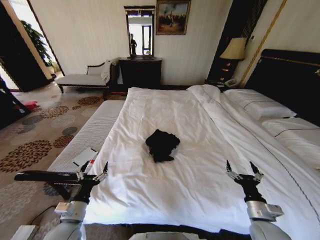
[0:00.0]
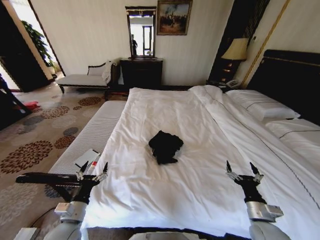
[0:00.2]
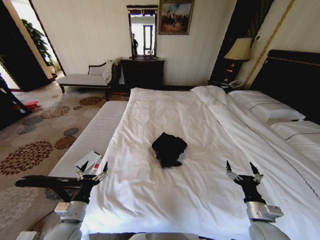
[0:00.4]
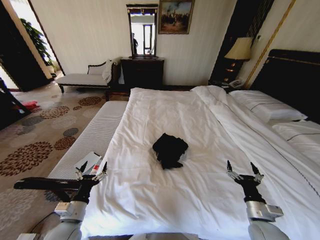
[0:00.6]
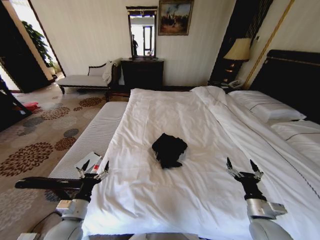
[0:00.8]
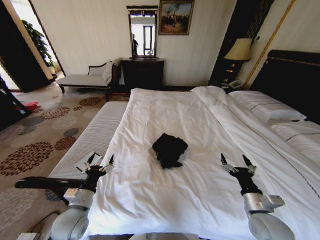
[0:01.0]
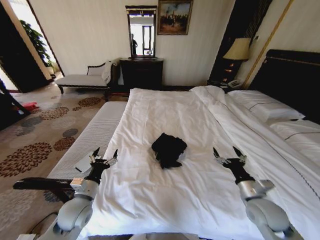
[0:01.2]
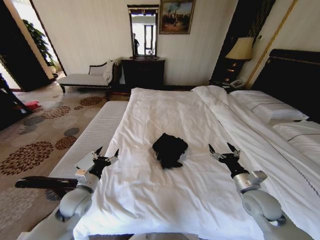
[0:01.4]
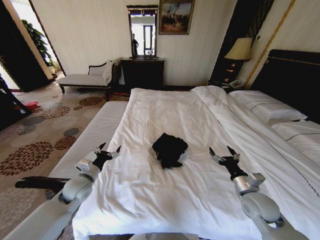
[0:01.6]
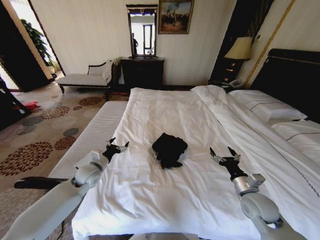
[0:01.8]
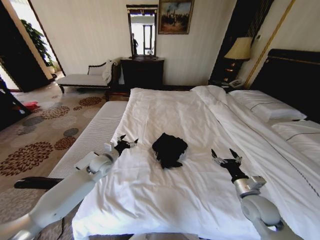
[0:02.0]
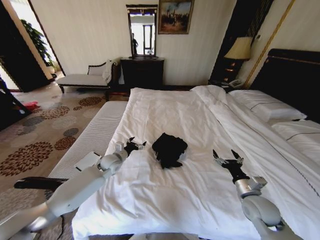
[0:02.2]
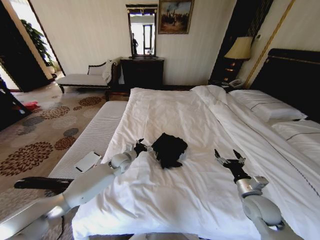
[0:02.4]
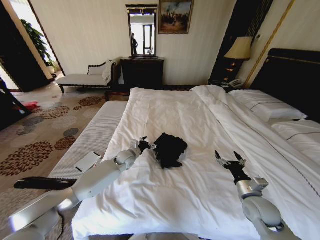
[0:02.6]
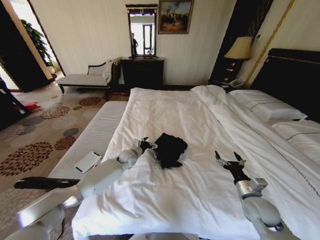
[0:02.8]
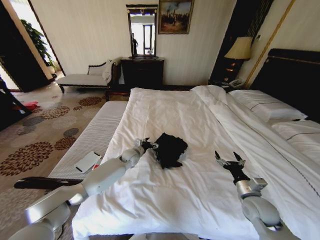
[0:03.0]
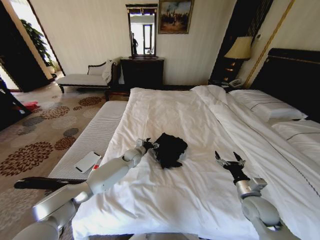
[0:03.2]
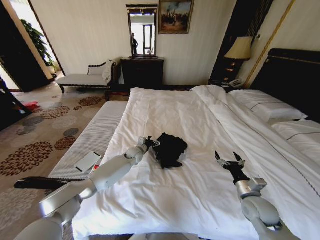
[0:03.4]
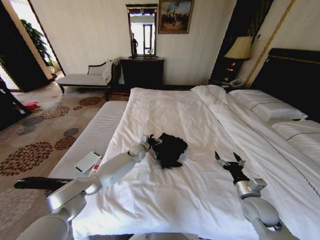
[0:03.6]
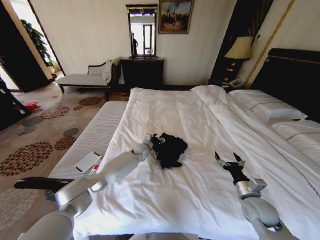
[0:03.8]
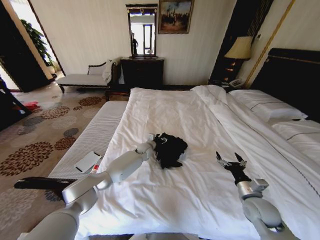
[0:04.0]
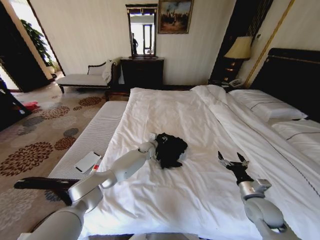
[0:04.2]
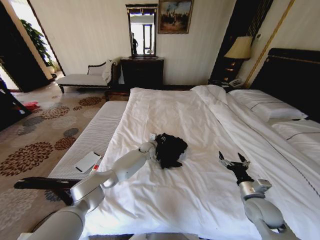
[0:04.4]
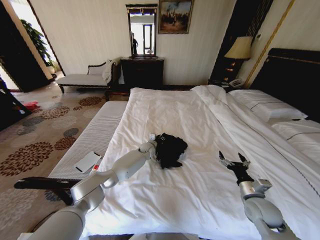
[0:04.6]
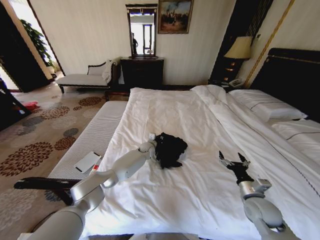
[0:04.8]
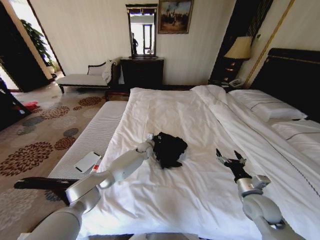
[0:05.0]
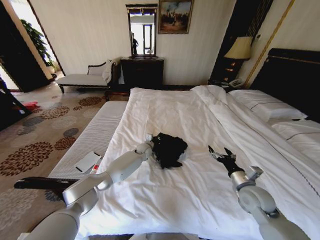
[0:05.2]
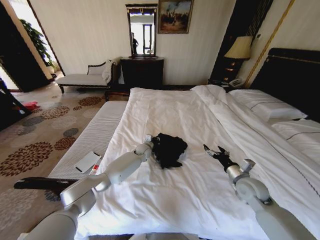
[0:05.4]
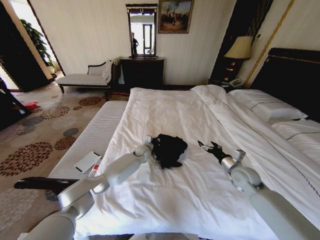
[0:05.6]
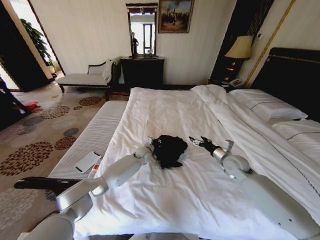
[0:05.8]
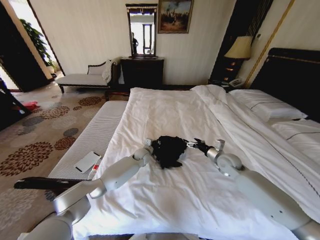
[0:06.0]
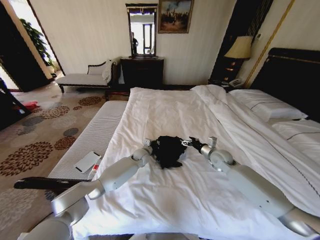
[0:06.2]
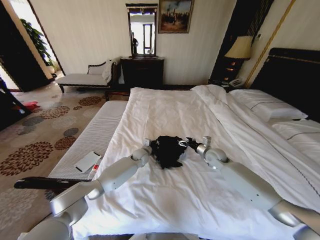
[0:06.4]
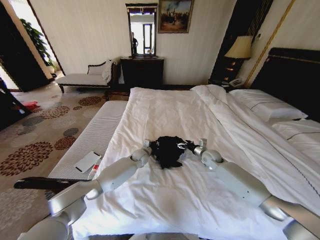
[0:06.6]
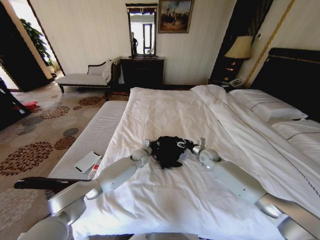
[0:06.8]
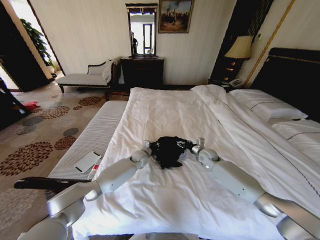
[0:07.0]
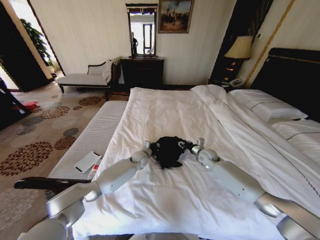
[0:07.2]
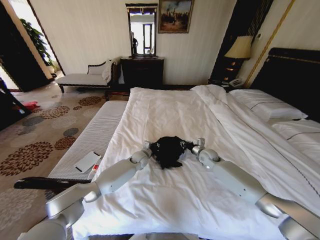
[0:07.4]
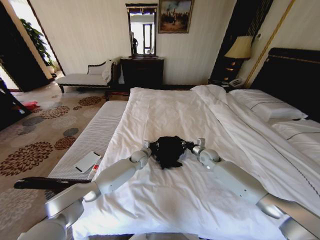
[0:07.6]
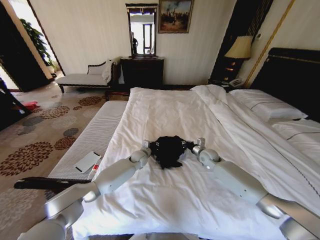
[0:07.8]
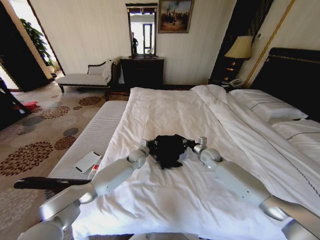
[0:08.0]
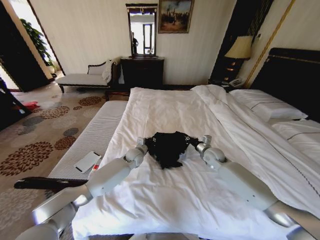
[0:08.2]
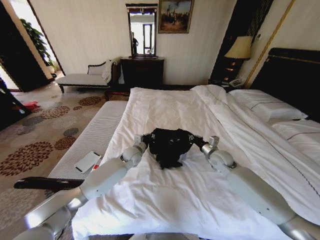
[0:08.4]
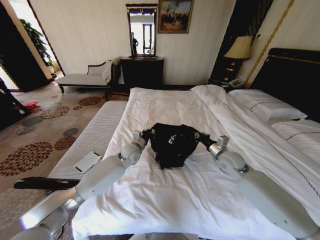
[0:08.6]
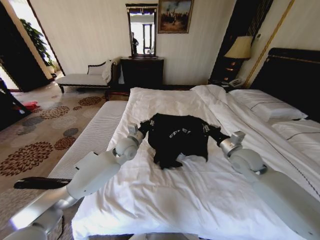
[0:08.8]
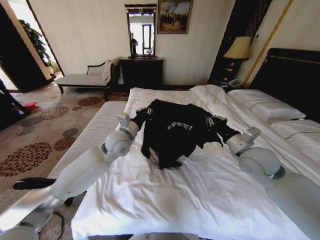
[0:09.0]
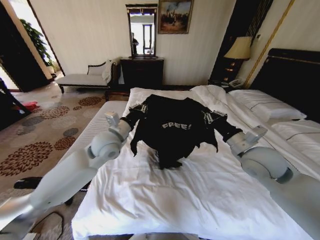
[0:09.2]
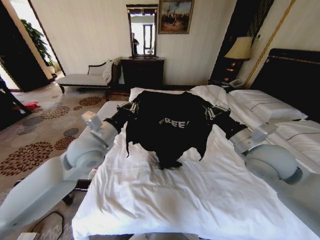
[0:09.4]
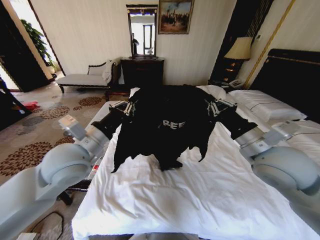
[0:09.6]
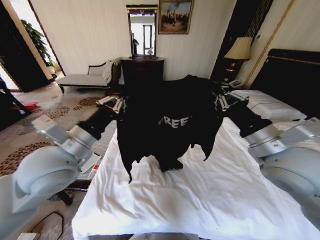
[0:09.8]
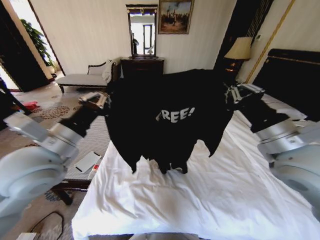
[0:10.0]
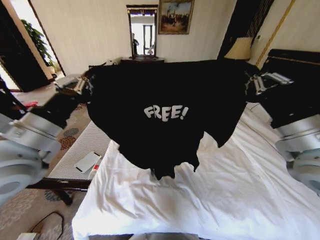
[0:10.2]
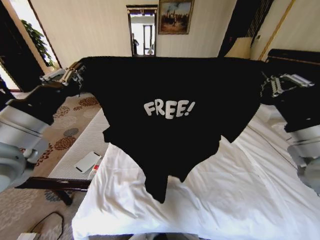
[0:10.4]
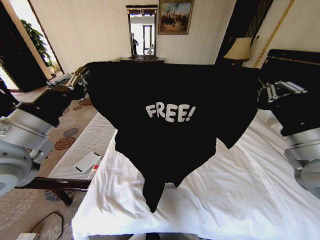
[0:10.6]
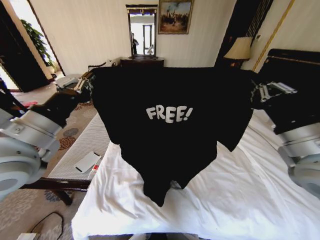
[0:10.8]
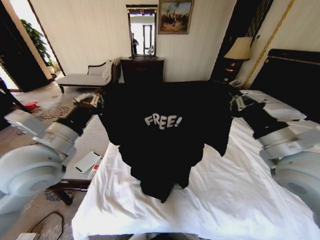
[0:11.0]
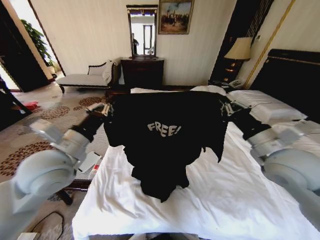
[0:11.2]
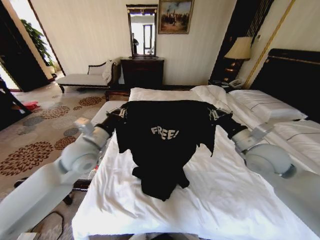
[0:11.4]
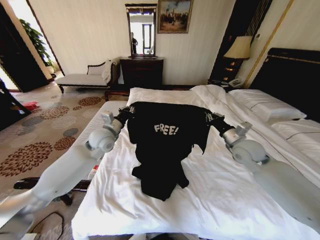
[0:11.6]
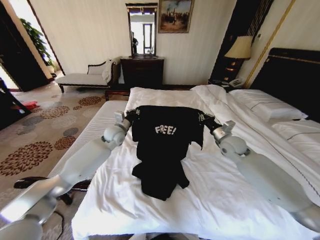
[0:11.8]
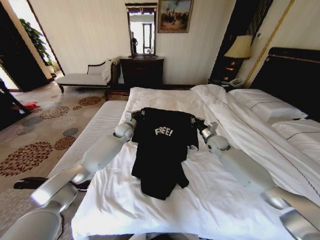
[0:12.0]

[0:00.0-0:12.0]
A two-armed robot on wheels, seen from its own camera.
Task of the whole recording: Fold the clothes on the bed.
0.0 to 1.6 s: The left gripper is displaced forward by approximately 15 cm; the right gripper heads forward and upward, covering roughly 10 cm.
1.6 to 3.0 s: The left gripper travels forward and to the right by some 25 cm.
3.0 to 4.4 s: The left gripper moves to the right and forward, roughly 10 cm, and closes its fingers.
4.4 to 6.0 s: The right gripper shifts approximately 20 cm forward. Meanwhile the left gripper moves about 5 cm, and closes its fingers.
6.0 to 7.6 s: The right gripper moves forward and downward, approximately 10 cm, and closes up.
7.6 to 9.0 s: The left gripper goes approximately 20 cm upward, while the right gripper moves upward and backward, roughly 25 cm.
9.0 to 10.4 s: The left gripper shifts roughly 30 cm backward, upward and to the left; the right gripper heads upward and backward, covering some 20 cm.
10.4 to 12.0 s: Both grippers travel together forward and downward, approximately 40 cm.

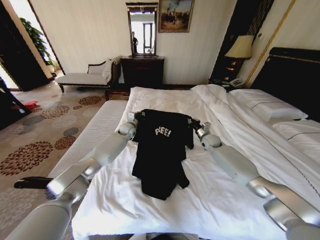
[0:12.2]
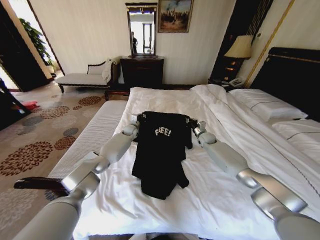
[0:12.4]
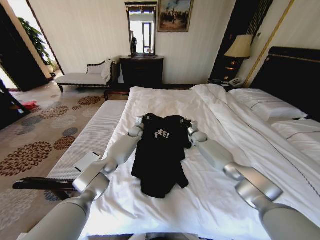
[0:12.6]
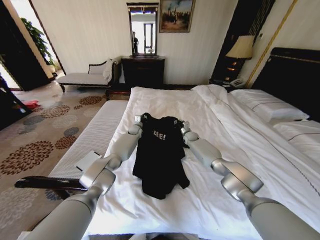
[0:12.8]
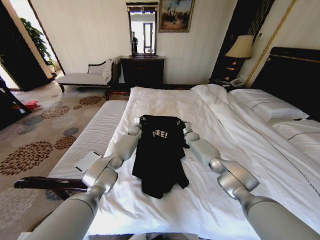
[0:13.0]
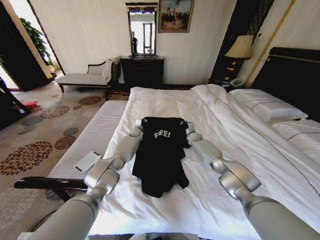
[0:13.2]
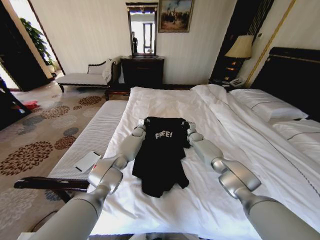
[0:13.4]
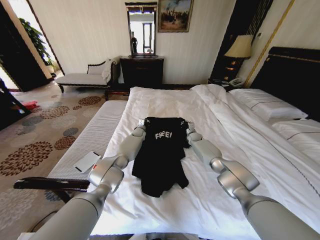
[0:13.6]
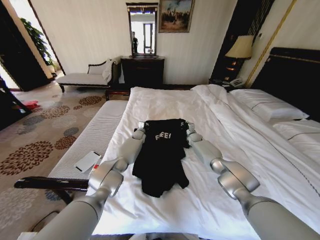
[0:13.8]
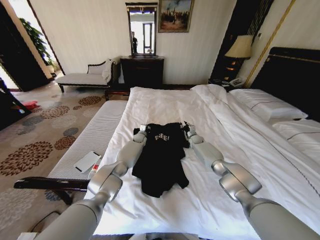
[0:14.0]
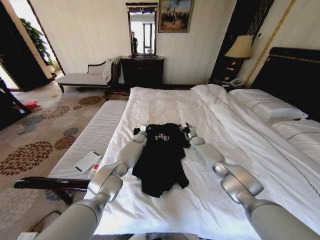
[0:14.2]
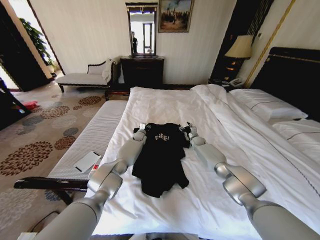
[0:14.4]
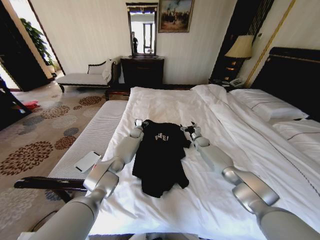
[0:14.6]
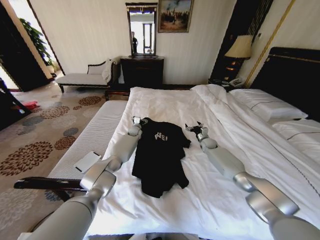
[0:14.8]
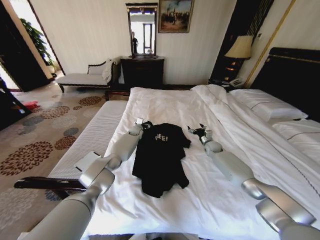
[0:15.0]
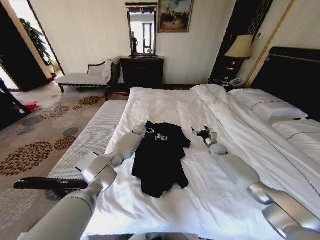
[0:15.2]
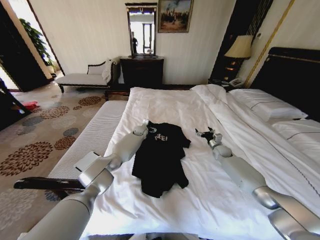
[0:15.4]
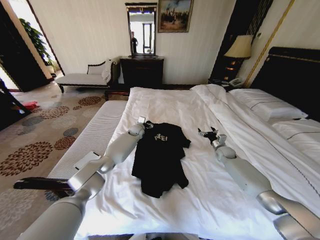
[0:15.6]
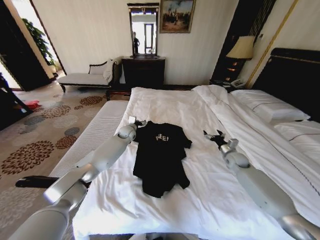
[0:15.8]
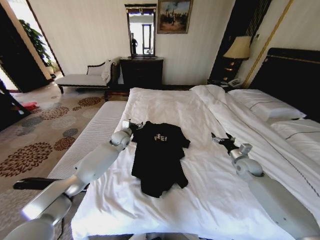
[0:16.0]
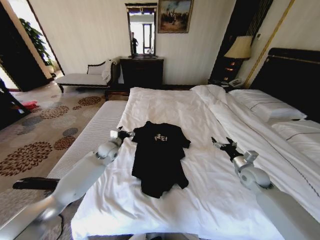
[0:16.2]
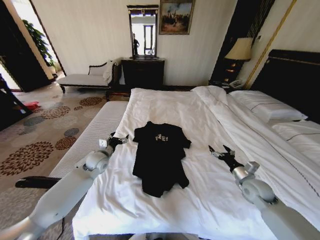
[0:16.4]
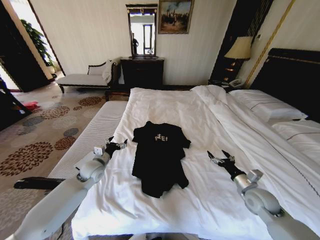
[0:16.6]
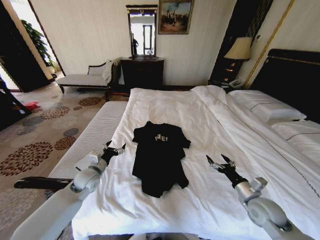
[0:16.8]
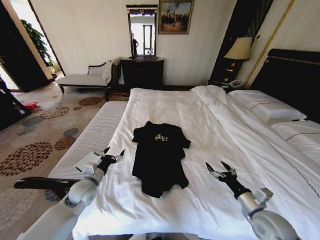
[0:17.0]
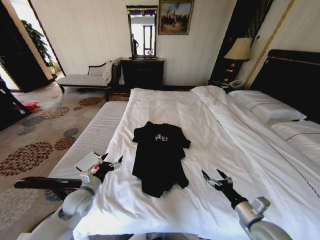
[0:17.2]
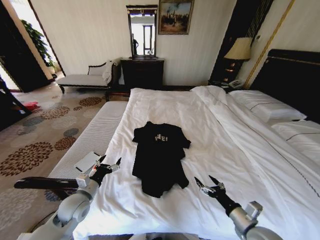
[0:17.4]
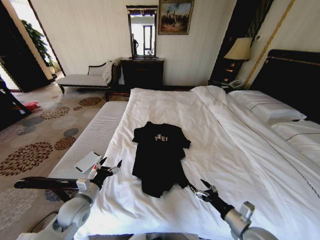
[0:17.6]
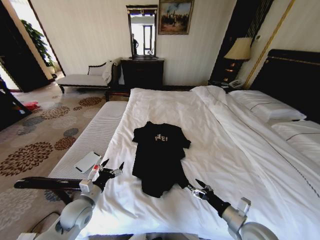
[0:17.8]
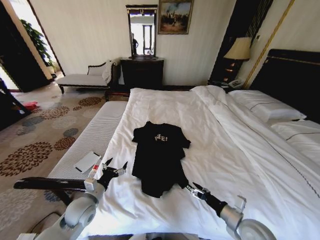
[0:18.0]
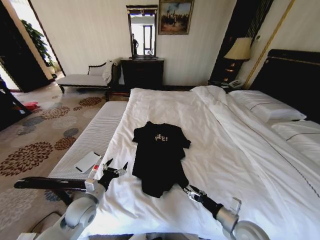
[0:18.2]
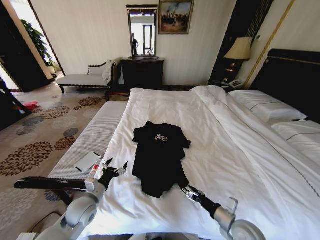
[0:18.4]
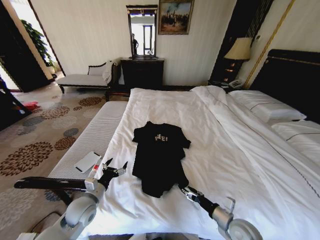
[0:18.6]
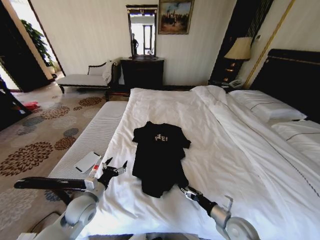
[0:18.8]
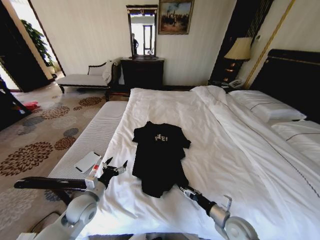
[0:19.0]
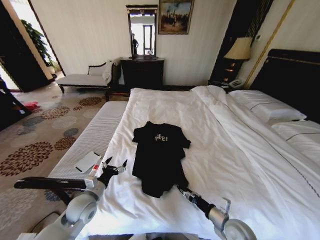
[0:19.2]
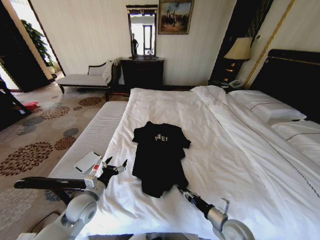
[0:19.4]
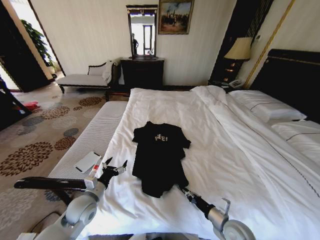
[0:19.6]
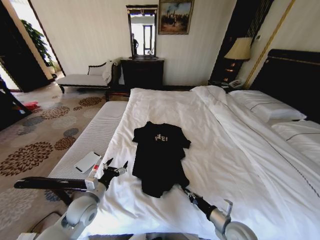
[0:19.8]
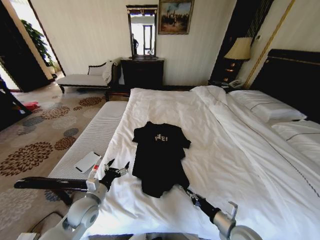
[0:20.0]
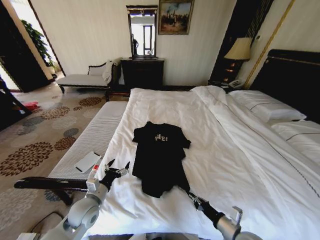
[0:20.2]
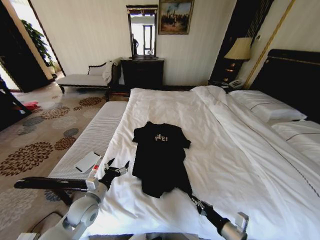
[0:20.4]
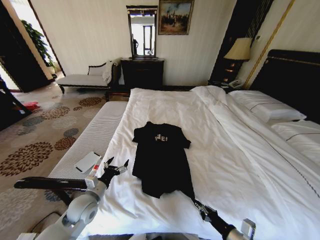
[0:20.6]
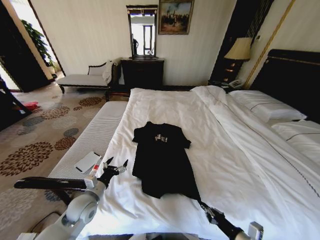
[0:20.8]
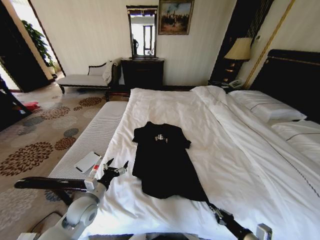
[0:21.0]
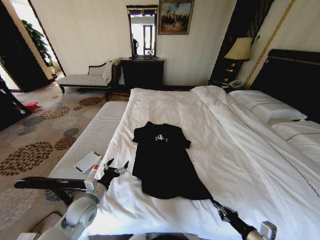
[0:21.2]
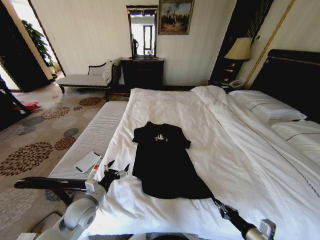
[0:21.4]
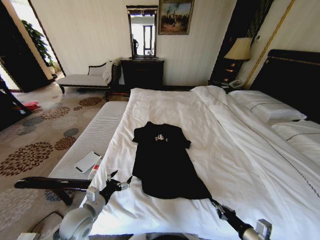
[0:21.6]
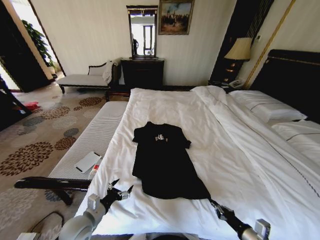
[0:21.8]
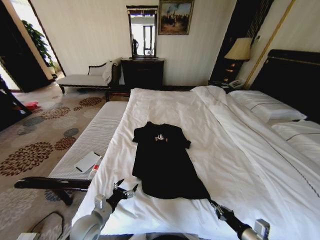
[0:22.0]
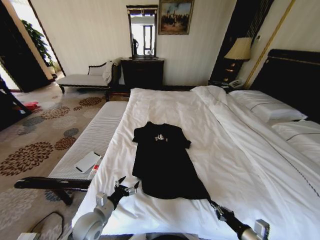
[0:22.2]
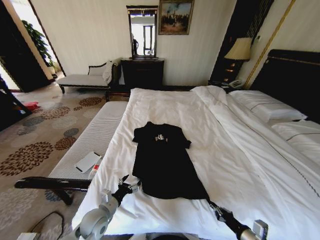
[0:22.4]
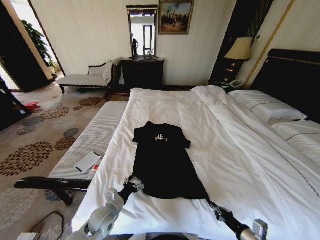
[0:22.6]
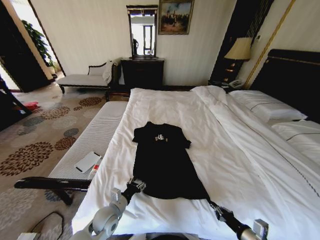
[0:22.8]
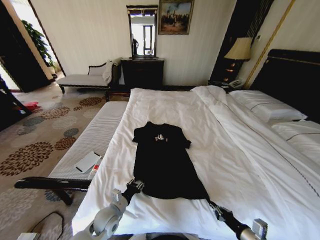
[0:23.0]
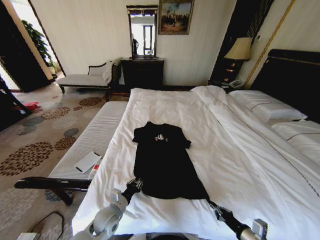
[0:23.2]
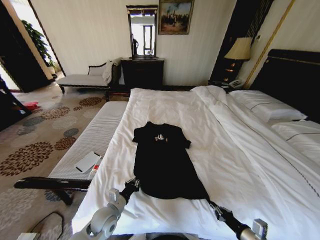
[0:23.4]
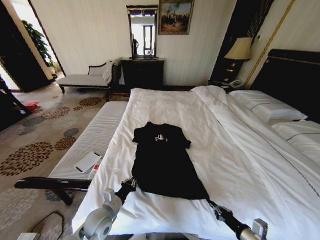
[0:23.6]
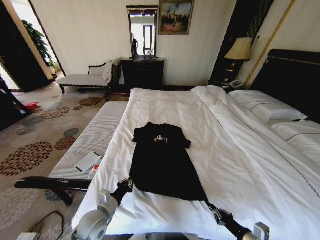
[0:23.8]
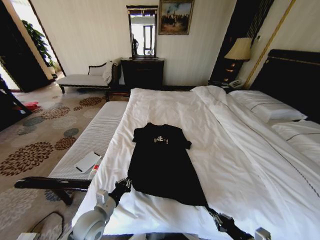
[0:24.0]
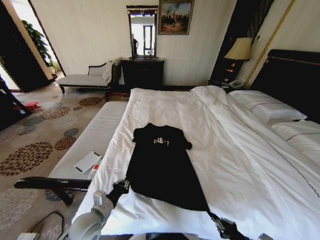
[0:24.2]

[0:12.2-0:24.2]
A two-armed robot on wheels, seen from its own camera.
Task of the whole recording: Fold the clothes on the bed.
12.2 to 13.8 s: The left gripper moves downward and to the right, approximately 10 cm; the right gripper is displaced forward and downward by about 15 cm.
13.8 to 15.2 s: The left gripper opens up. The right gripper shifts about 15 cm to the right and backward, and opens up.
15.2 to 16.6 s: The right gripper moves backward, about 30 cm; the left gripper moves backward and to the left, roughly 35 cm.
16.6 to 18.2 s: The right gripper goes approximately 15 cm backward and to the left; the left gripper moves backward, approximately 15 cm.
18.2 to 19.8 s: The right gripper closes up.
19.8 to 21.2 s: The right gripper moves to the right and backward, some 10 cm.
21.2 to 22.6 s: The left gripper goes some 10 cm downward and to the right.
22.6 to 24.2 s: The left gripper goes roughly 5 cm upward, and closes up.
